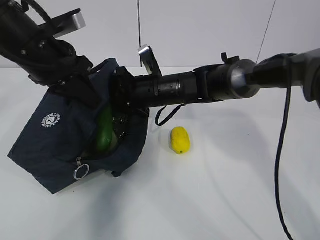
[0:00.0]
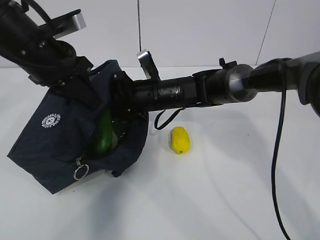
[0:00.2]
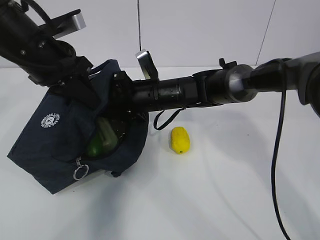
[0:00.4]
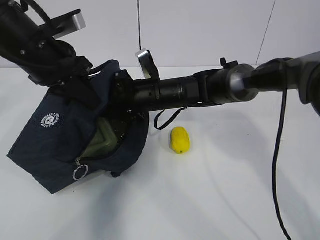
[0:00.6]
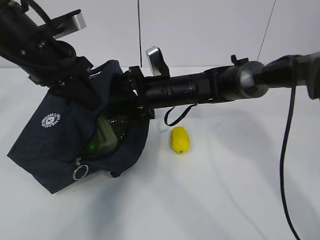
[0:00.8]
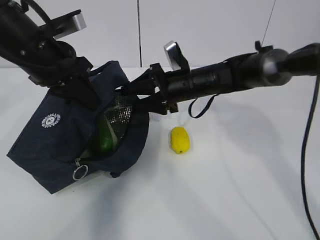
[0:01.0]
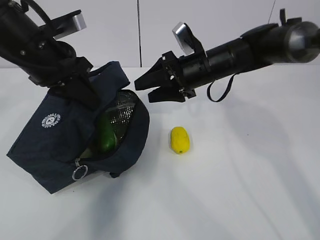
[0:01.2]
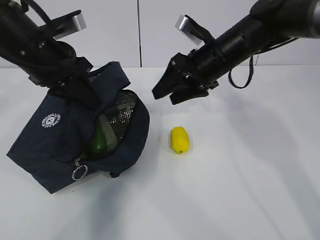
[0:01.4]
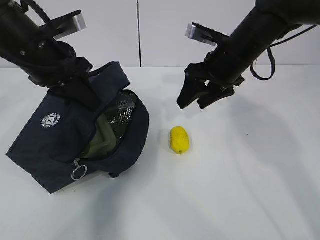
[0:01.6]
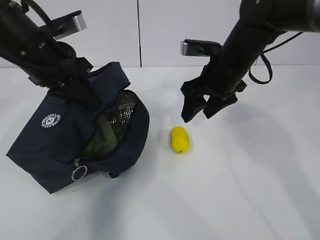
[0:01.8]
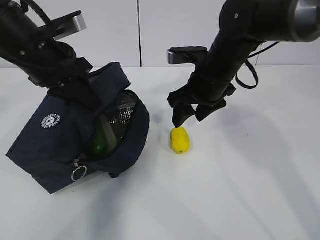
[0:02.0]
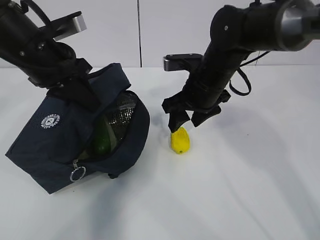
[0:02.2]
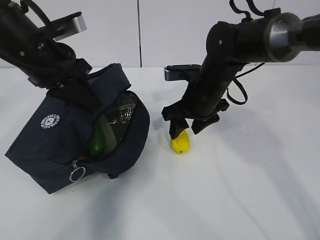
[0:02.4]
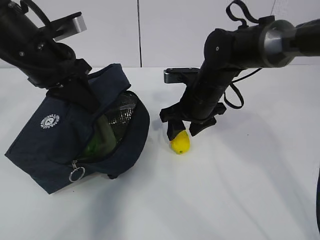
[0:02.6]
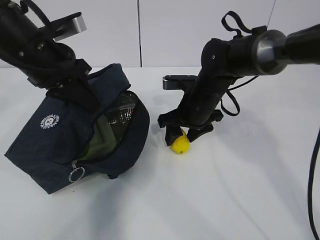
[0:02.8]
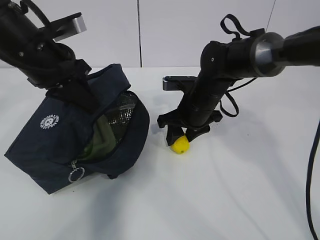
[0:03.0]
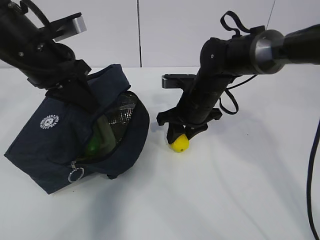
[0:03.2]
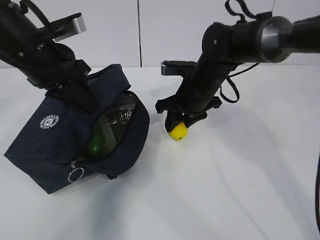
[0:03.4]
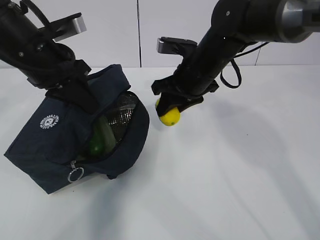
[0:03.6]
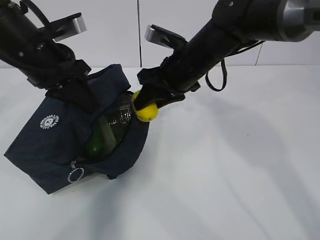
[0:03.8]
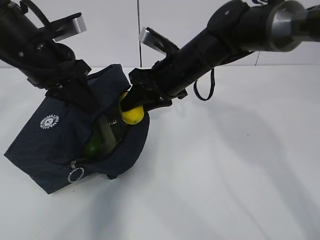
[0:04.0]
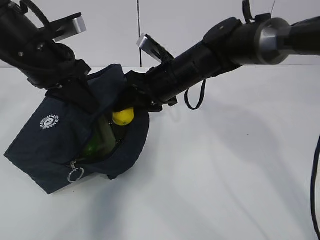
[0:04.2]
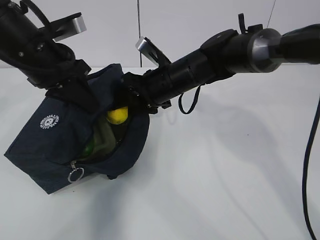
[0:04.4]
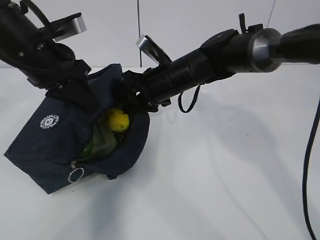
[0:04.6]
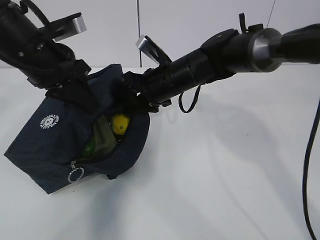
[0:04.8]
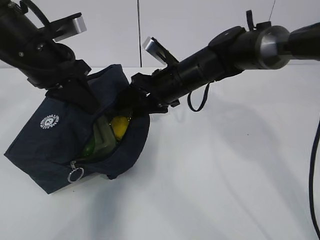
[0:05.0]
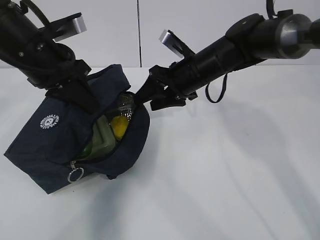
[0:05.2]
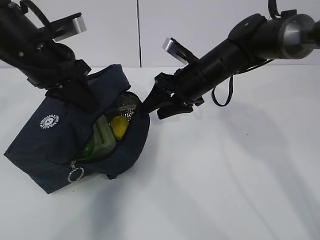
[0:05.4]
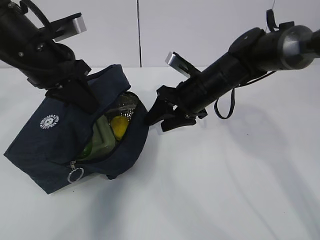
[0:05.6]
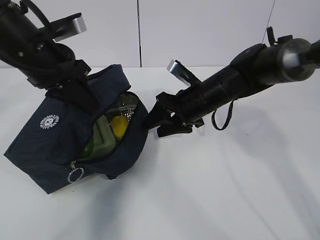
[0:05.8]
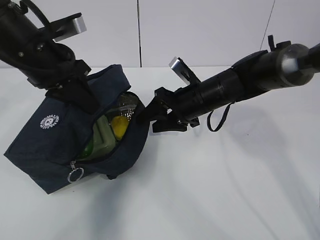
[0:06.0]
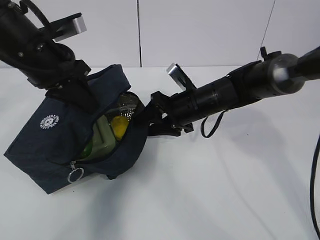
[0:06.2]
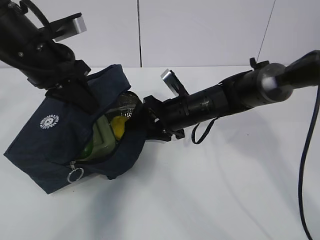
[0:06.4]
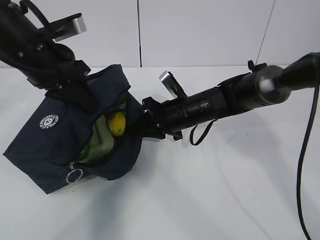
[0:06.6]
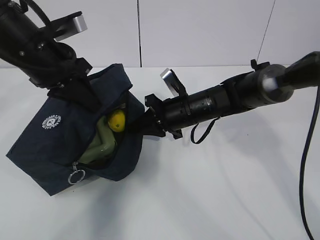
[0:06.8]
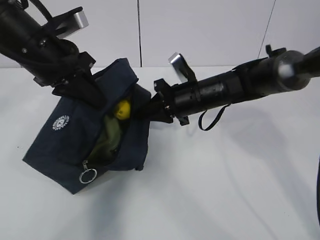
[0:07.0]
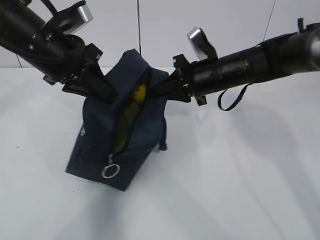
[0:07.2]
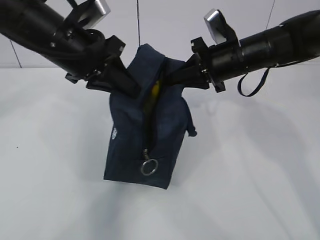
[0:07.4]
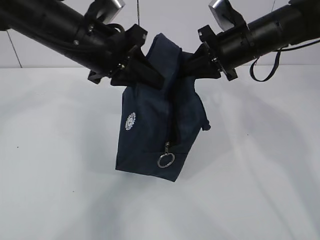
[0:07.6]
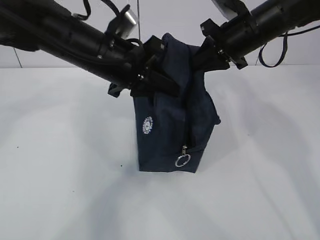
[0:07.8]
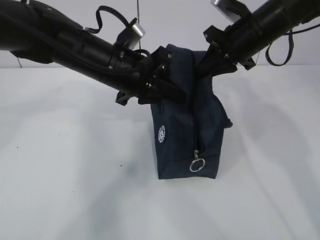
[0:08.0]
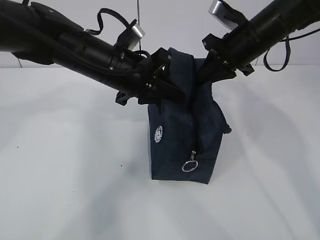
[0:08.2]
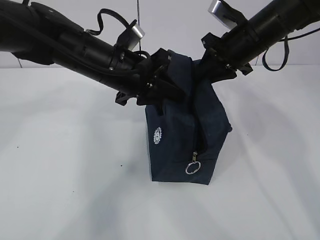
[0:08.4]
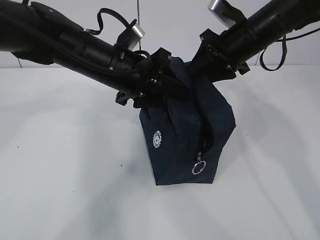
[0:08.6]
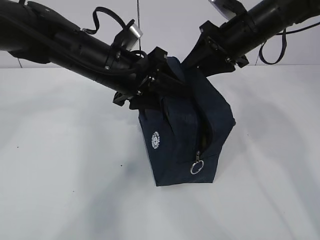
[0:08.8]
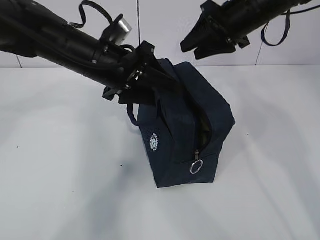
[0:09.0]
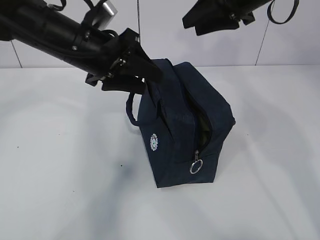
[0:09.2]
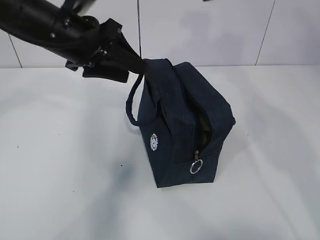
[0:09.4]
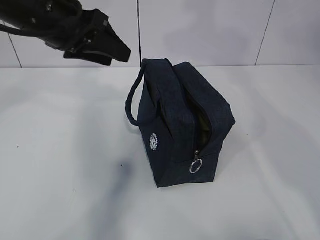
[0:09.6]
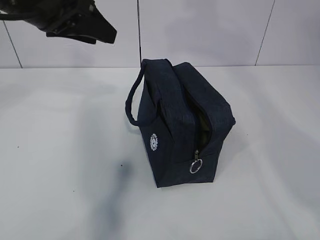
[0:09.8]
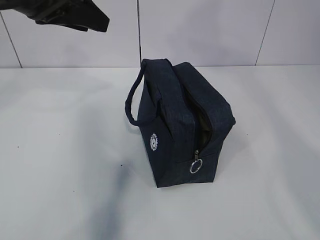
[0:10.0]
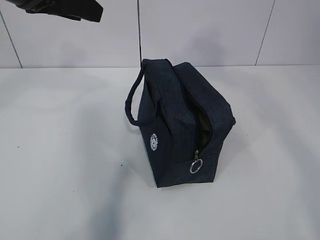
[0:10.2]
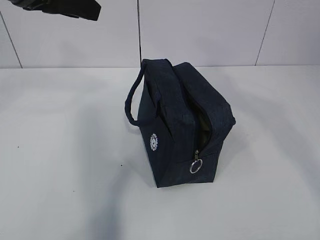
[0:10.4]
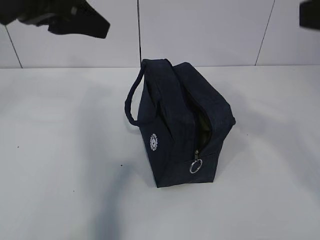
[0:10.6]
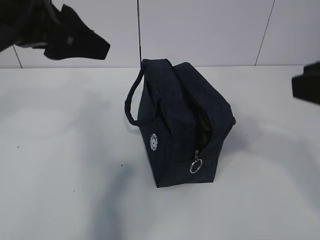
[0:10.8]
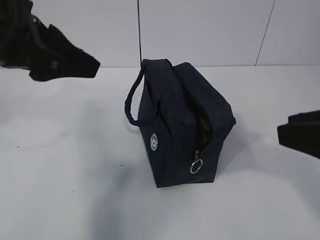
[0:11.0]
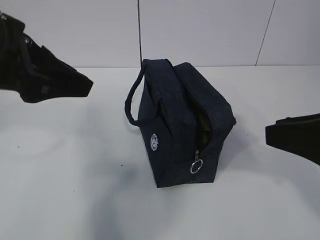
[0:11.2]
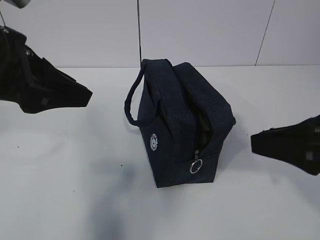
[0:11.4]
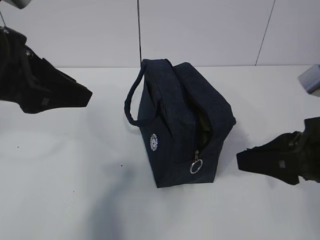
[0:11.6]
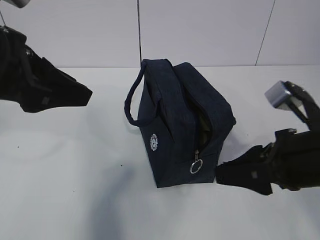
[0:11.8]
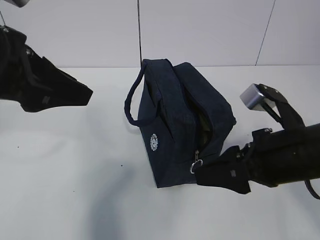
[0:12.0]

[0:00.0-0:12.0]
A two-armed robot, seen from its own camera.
Step, 0:00.2 to 0:01.4: Grab the lunch bag with your right hand.
Step, 0:01.6 to 0:03.2: Move the lunch bag to the right.
0:00.0 to 0:01.6: The right gripper heads to the right and upward, covering about 15 cm, and opens up.
0:01.6 to 0:03.0: The right gripper heads downward, covering roughly 10 cm.
0:03.0 to 0:04.4: The right gripper shifts approximately 5 cm to the left.
0:04.4 to 0:06.0: The right gripper heads to the right, covering roughly 5 cm.
0:06.0 to 0:07.6: The left gripper moves to the right, about 5 cm. The right gripper moves upward and to the right, some 10 cm, and closes.
0:07.6 to 0:09.0: The left gripper shifts by some 5 cm, and opens up; the right gripper moves approximately 5 cm, and opens.
0:09.0 to 0:10.4: The right gripper moves backward and upward, roughly 30 cm; the left gripper goes about 15 cm upward and to the left.
0:10.4 to 0:12.0: The right gripper shifts about 25 cm downward, and opens its fingers; the left gripper travels backward and downward by about 10 cm.

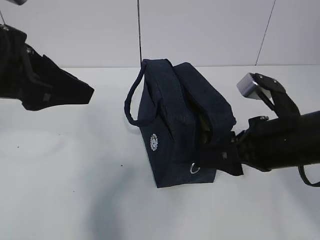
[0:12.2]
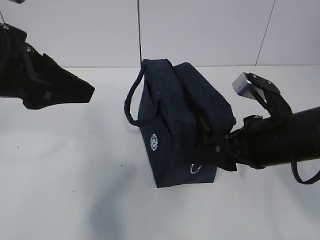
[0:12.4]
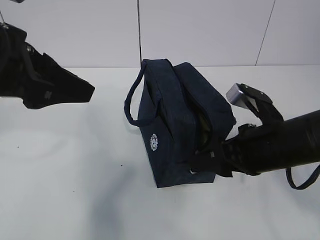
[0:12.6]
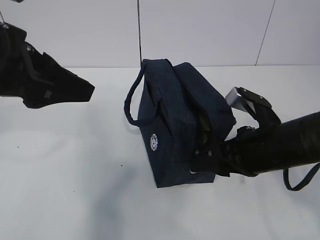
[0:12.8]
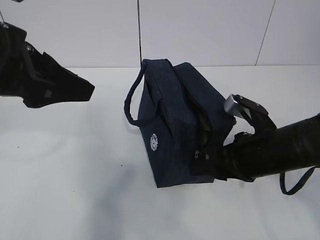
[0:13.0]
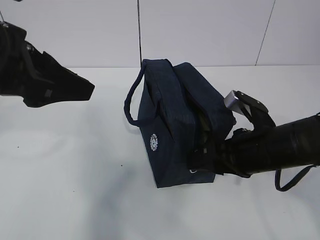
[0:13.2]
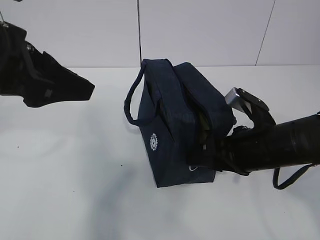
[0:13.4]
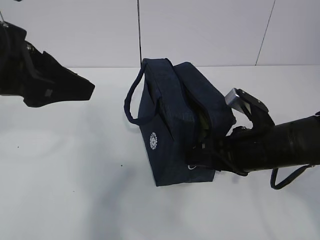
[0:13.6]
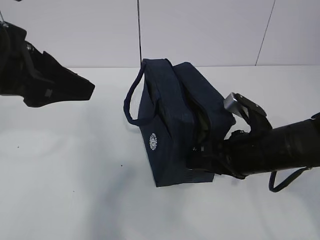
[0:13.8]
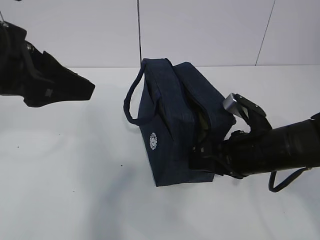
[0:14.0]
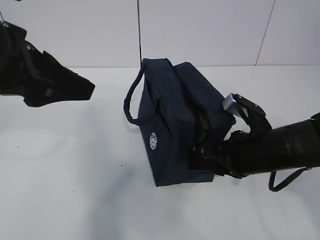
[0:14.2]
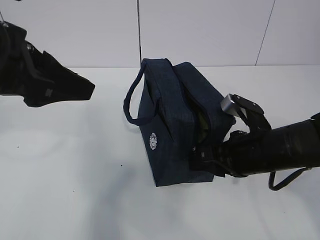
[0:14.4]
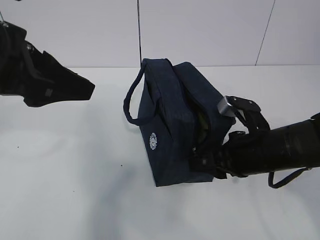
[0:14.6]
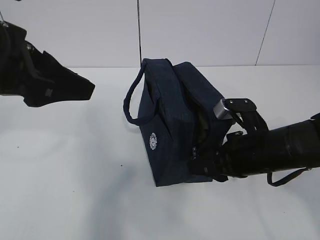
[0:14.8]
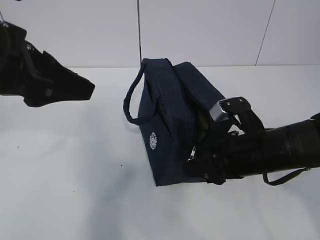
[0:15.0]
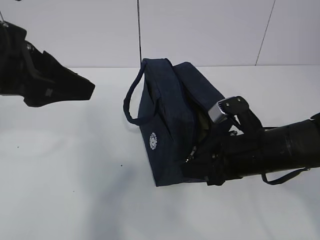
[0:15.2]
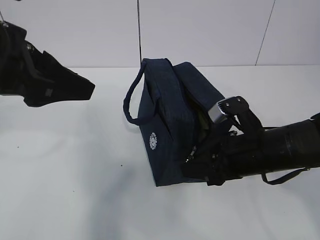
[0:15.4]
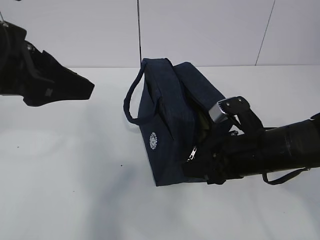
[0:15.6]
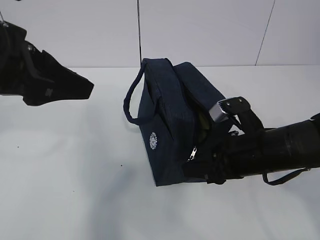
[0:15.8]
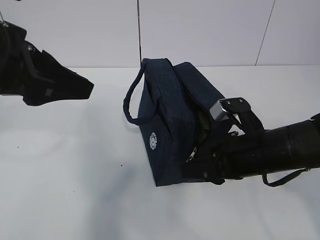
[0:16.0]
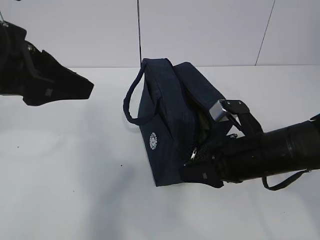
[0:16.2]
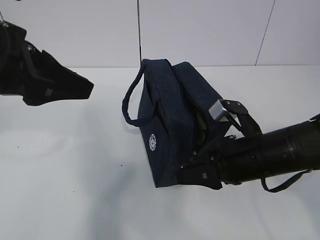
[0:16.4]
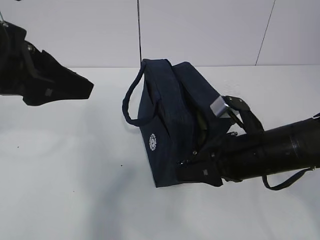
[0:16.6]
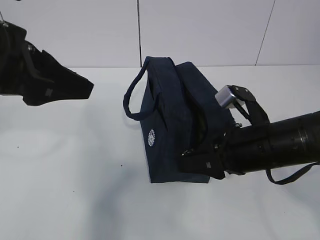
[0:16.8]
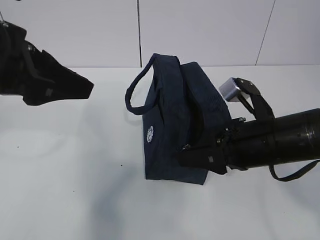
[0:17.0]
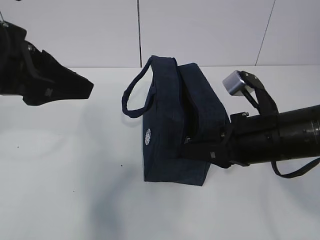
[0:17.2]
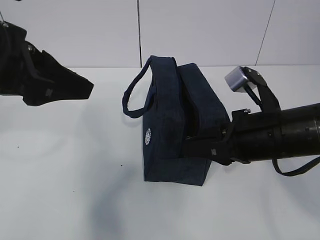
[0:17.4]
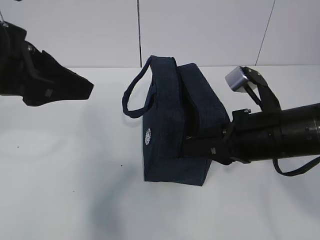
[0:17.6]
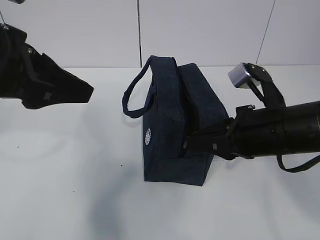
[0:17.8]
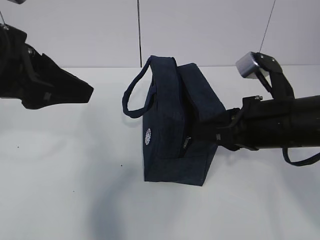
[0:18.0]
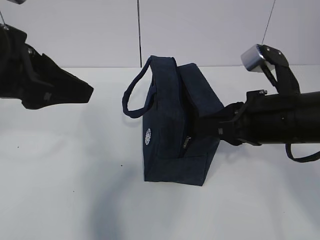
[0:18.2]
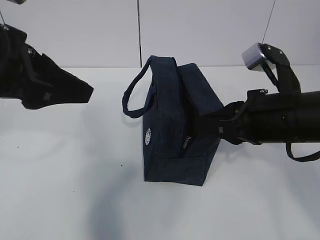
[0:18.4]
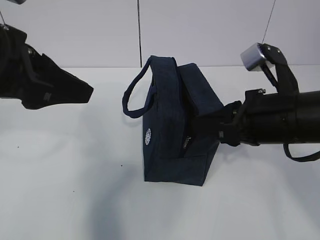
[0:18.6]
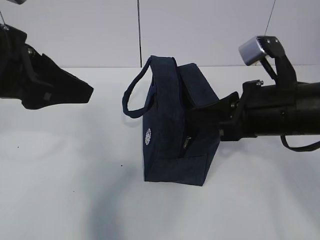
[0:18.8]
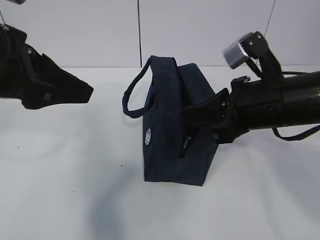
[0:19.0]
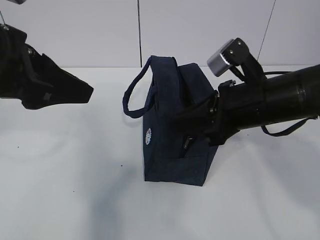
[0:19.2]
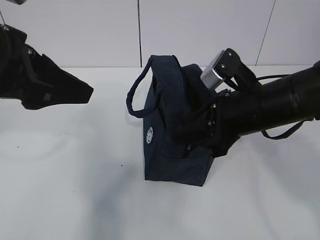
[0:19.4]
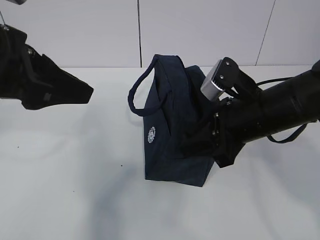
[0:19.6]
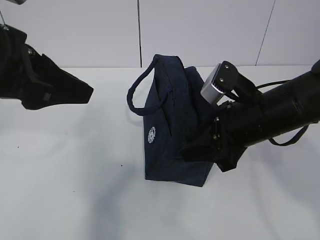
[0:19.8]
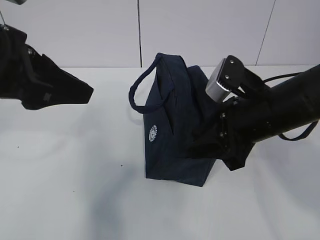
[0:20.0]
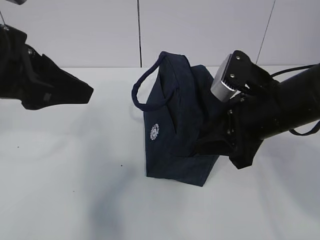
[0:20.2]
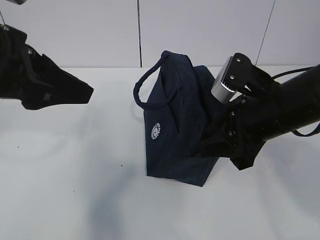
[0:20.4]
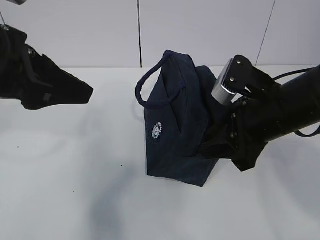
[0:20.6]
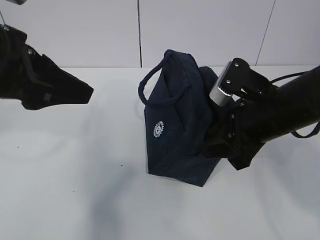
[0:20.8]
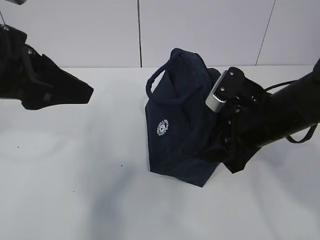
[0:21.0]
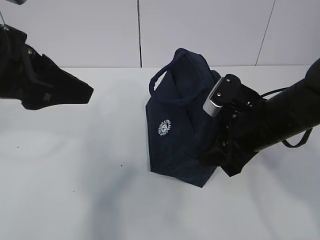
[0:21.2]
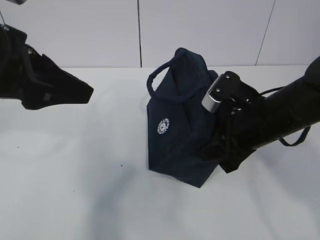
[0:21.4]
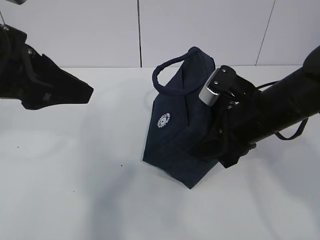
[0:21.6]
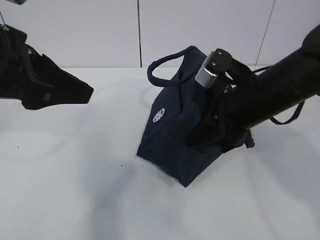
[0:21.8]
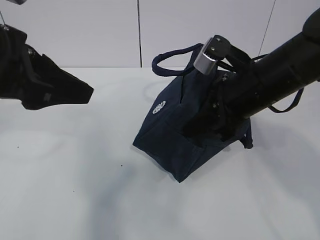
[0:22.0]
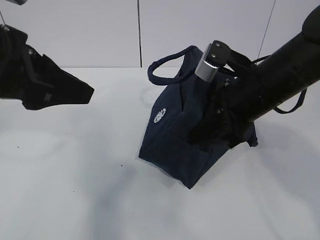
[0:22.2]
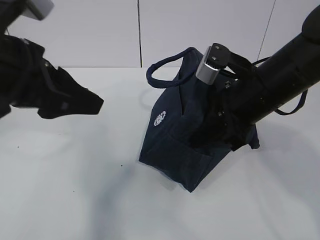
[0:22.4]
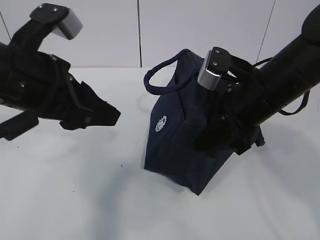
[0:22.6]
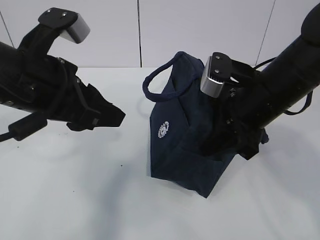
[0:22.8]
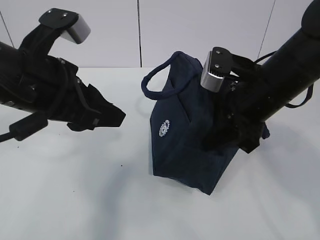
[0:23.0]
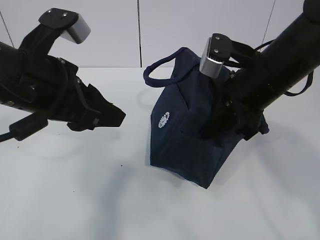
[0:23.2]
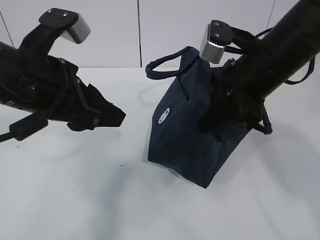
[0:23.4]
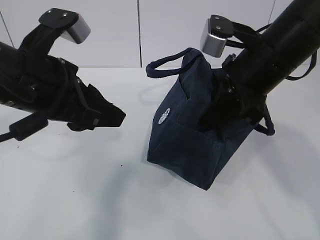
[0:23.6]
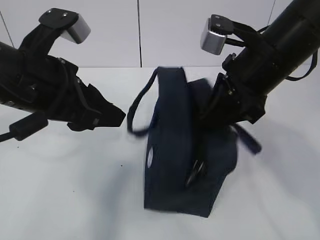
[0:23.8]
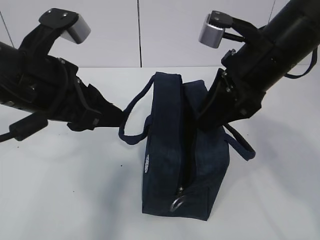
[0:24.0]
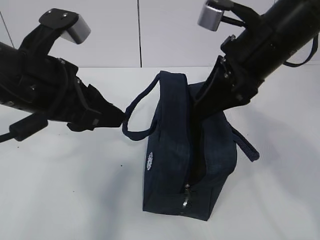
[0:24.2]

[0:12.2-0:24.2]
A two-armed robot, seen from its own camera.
0:12.2 to 0:13.8: The right gripper shifts approximately 5 cm downward.
0:15.2 to 0:16.6: The grippers stay close to where they were, moving slightly.
0:16.6 to 0:18.2: The right gripper is displaced upward by about 5 cm.
0:18.2 to 0:19.8: The right gripper opens up.
0:19.8 to 0:21.2: The grippers make only small movements.
0:21.2 to 0:22.6: The right gripper shifts by approximately 5 cm, and closes up.
0:22.6 to 0:24.2: The right gripper moves upward, roughly 5 cm, and opens its fingers.
